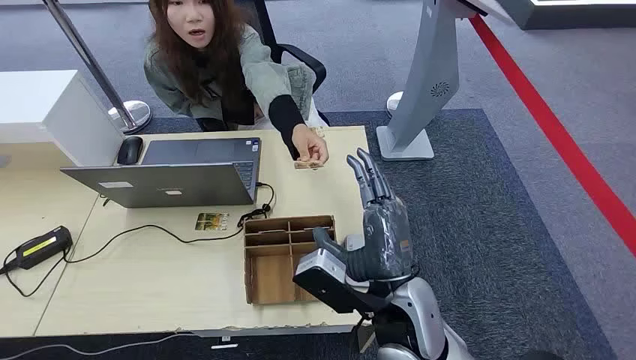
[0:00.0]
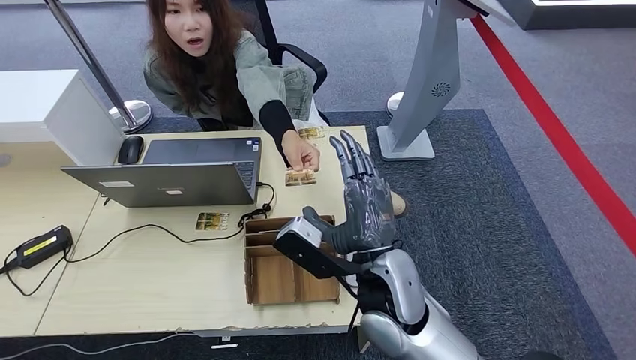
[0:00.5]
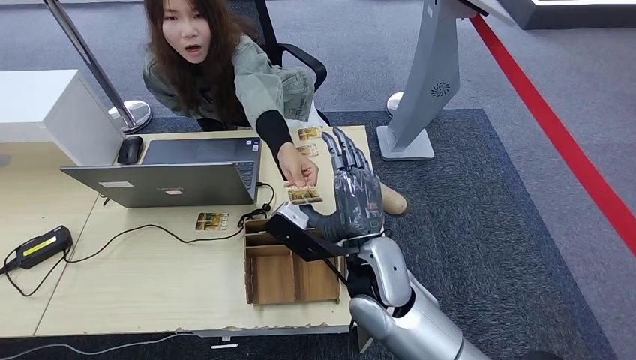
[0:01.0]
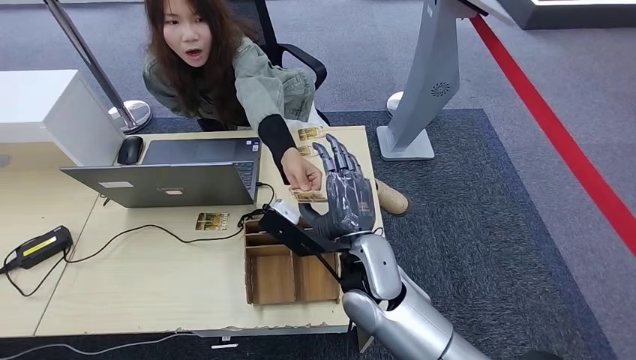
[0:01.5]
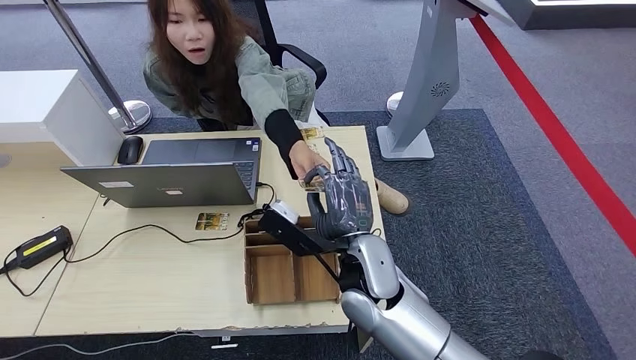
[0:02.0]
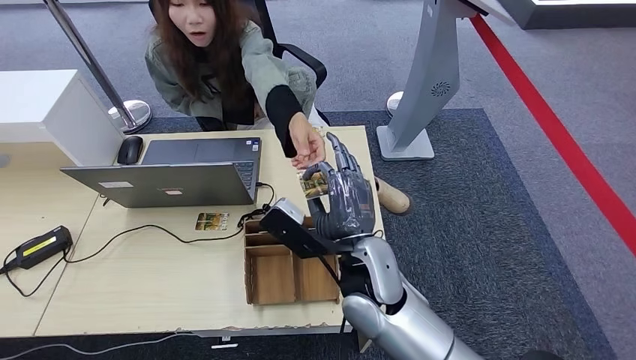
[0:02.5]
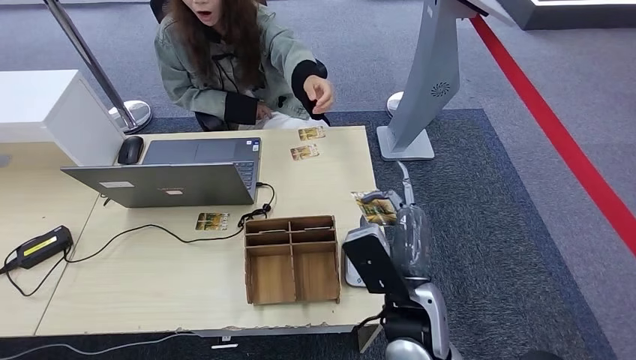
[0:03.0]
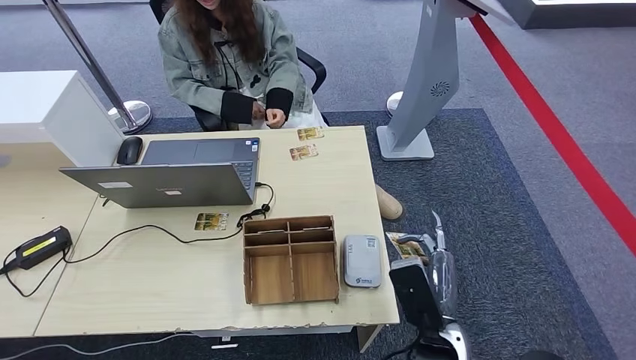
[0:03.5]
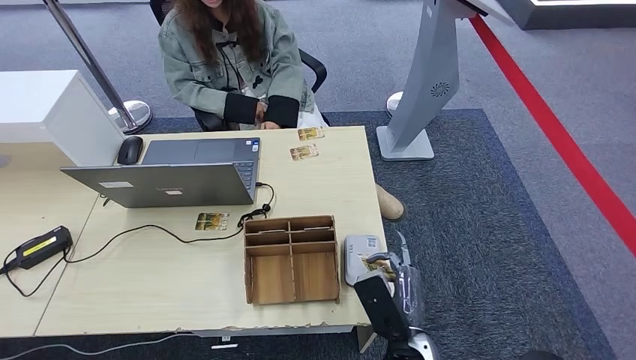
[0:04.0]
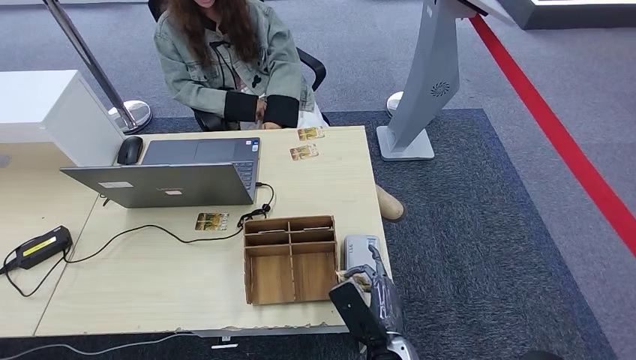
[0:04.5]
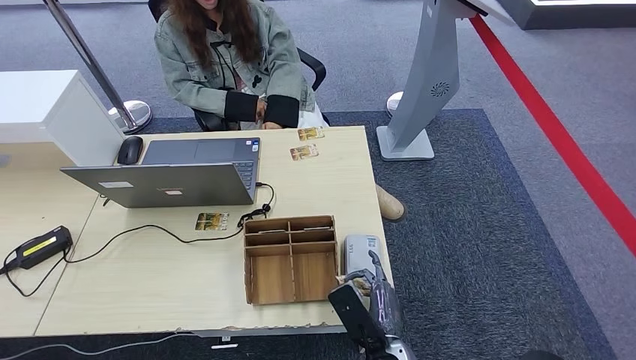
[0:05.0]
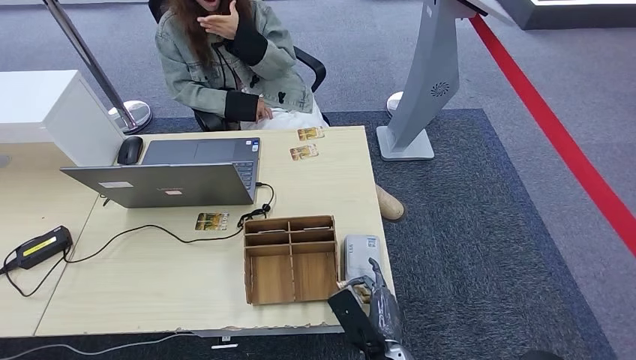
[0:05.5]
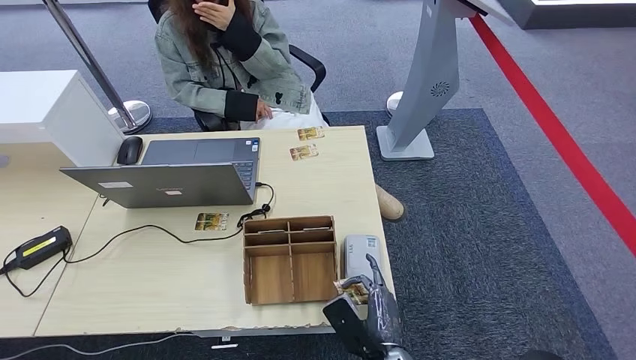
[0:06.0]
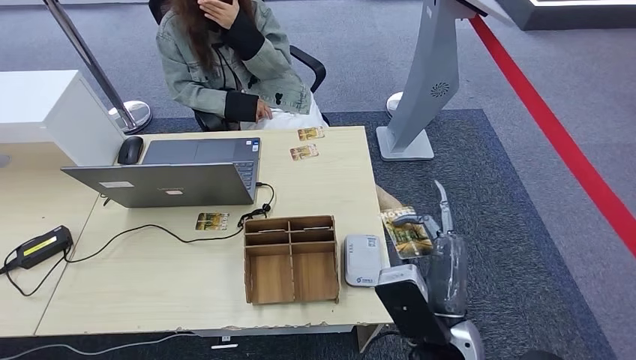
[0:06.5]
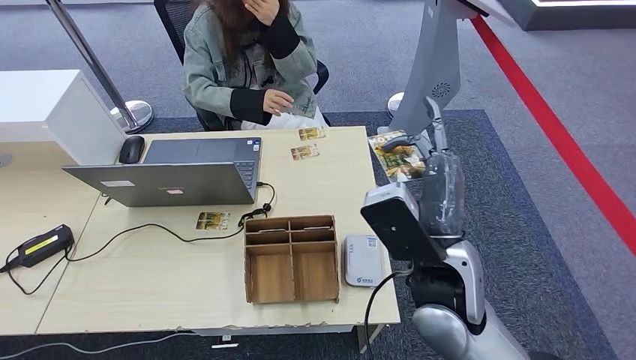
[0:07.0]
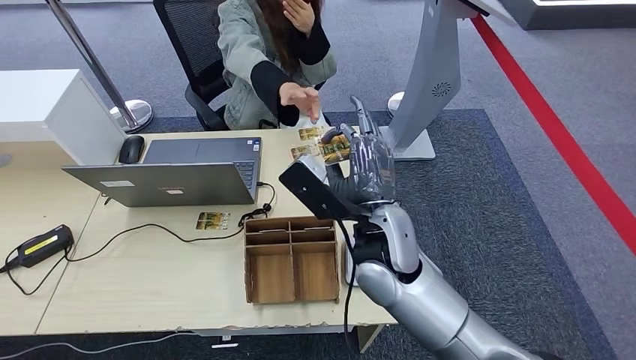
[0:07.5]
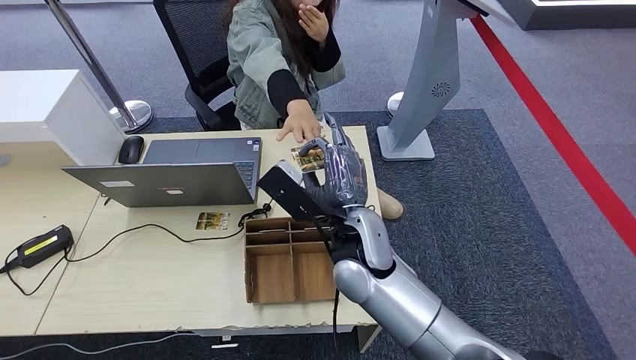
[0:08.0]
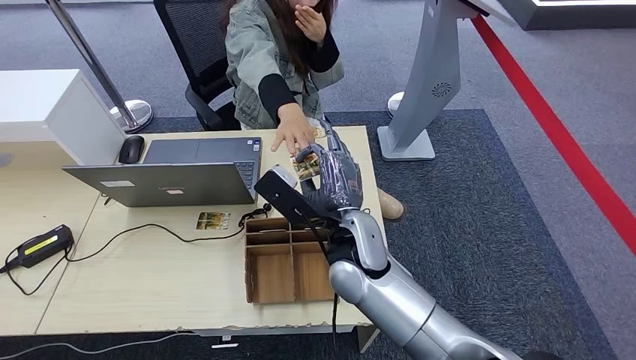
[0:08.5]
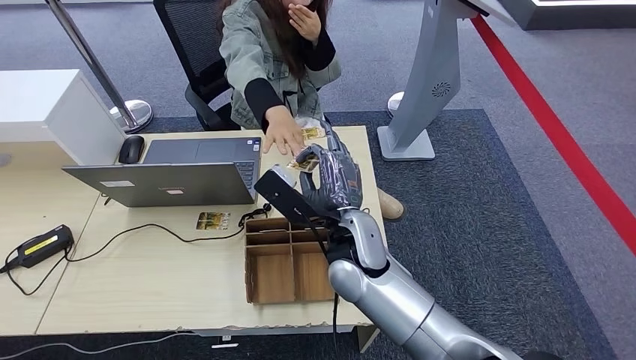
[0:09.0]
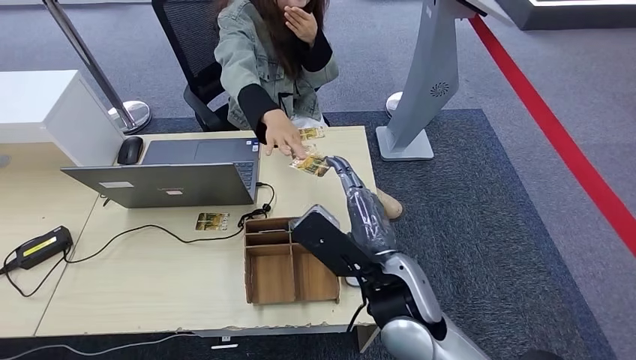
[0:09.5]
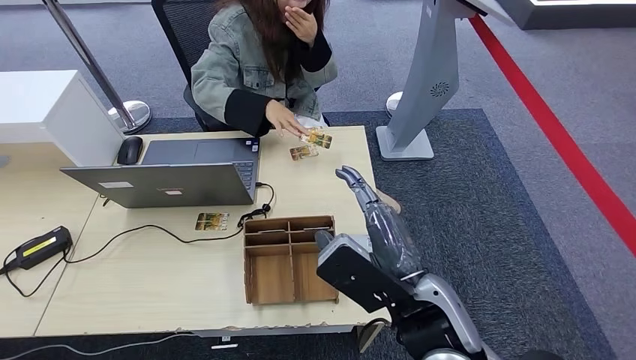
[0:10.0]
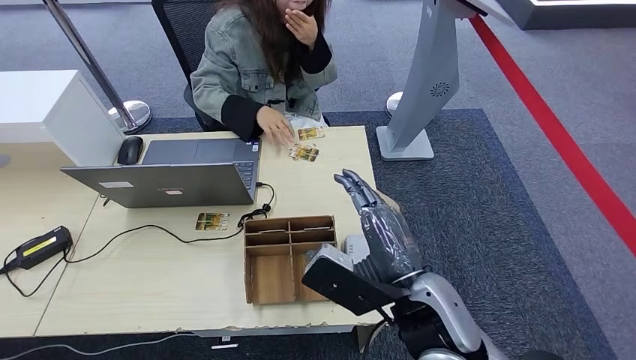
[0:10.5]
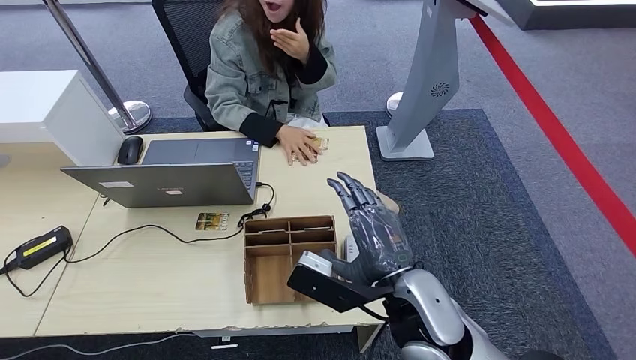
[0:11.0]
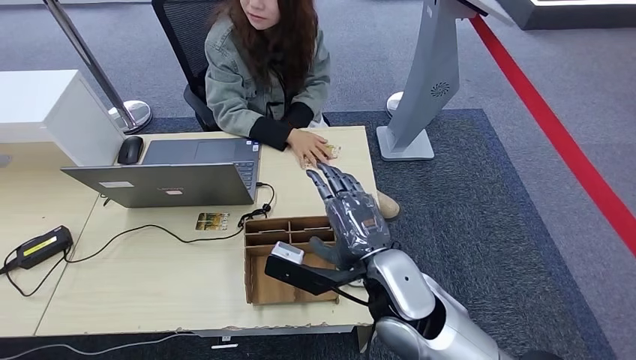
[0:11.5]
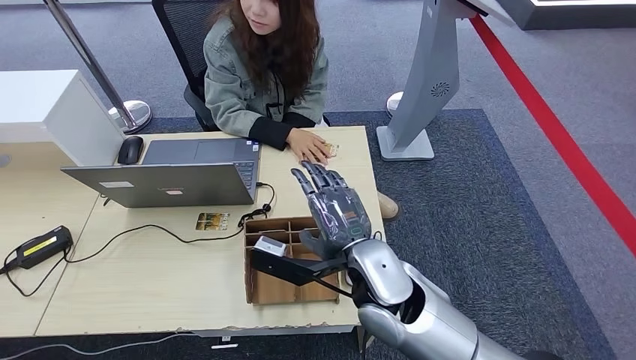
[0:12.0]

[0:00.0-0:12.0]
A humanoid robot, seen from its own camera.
Step, 0:00.0 to 0:02.5: Take the ID card from the person's hand.
Step, 0:03.0 to 0:05.0: Place the ID card on the card reader.
Step, 0:05.5 to 0:08.5: Hand the ID card to the person.
0:02.0 to 0:04.0: The right hand travels backward, downward and to the right by roughly 20 cm.
0:04.0 to 0:06.0: The right hand shifts by about 5 cm.
0:08.0 to 0:10.0: The right hand goes some 15 cm backward and to the right.
0:10.0 to 0:12.0: The right hand is displaced forward and to the left by approximately 10 cm.

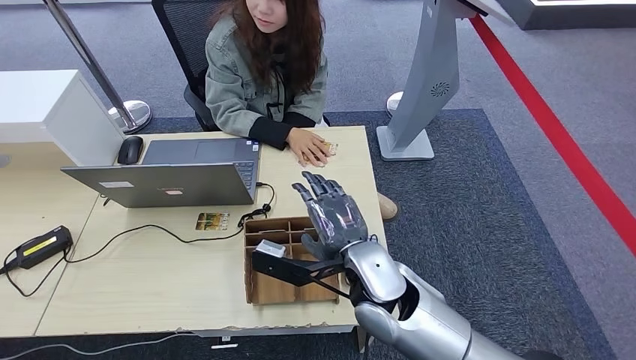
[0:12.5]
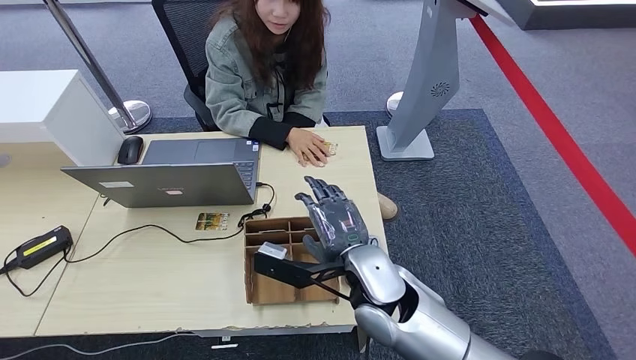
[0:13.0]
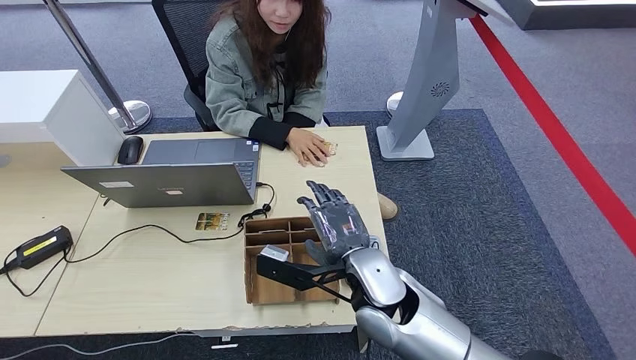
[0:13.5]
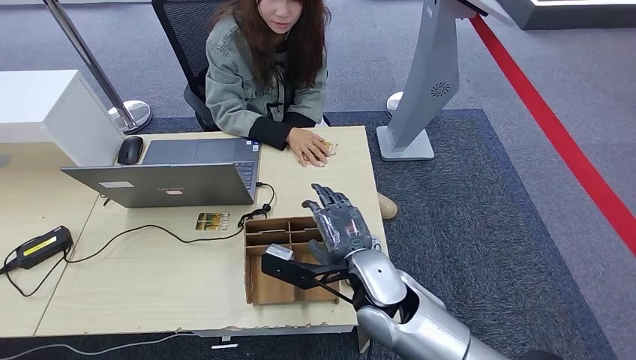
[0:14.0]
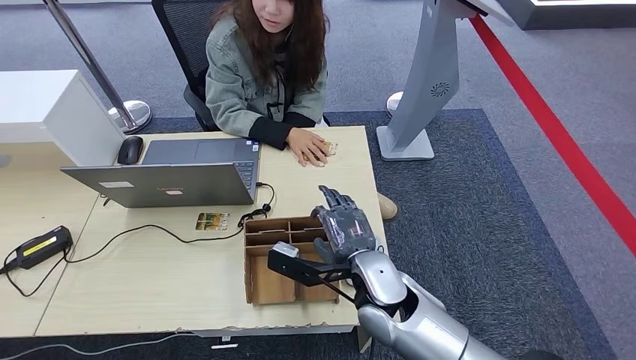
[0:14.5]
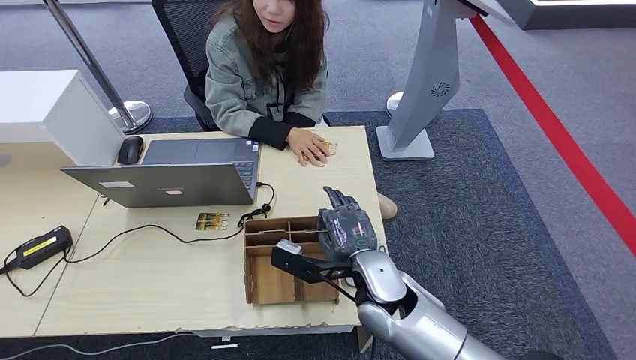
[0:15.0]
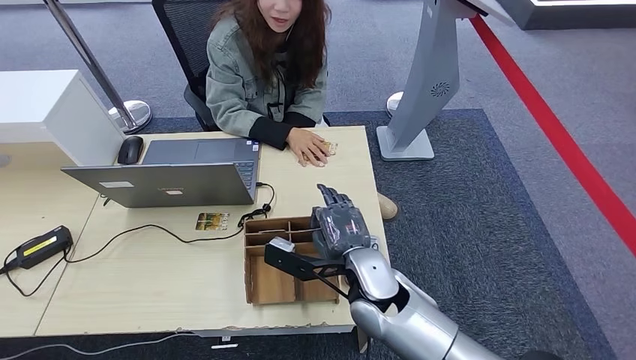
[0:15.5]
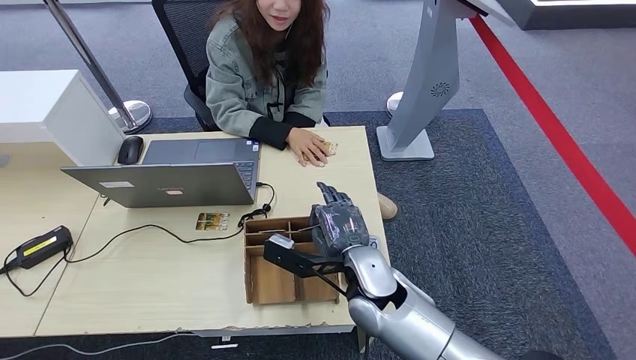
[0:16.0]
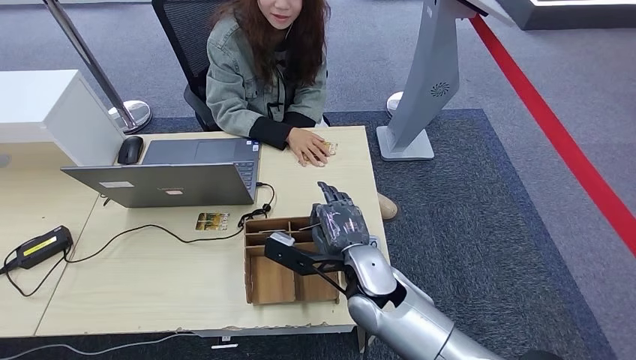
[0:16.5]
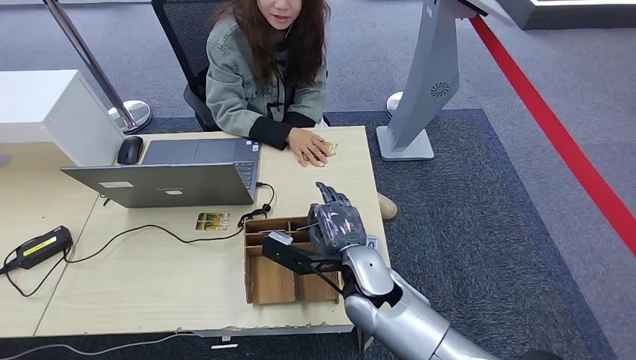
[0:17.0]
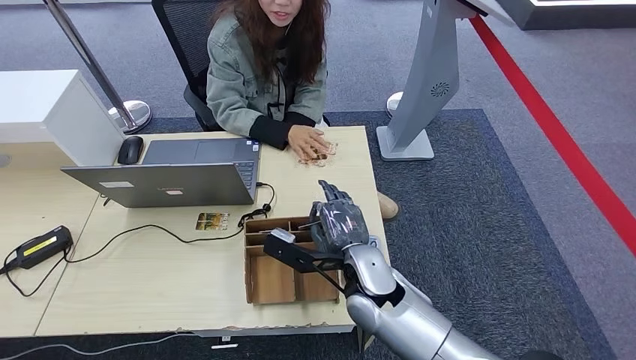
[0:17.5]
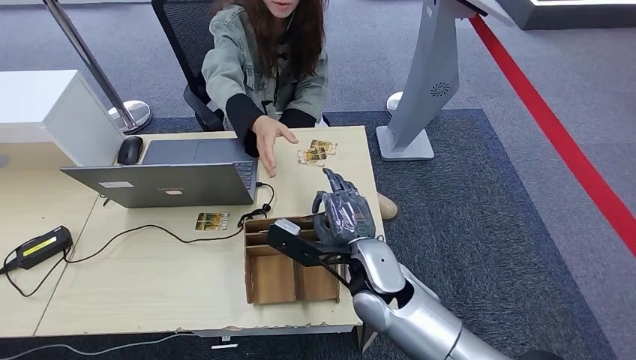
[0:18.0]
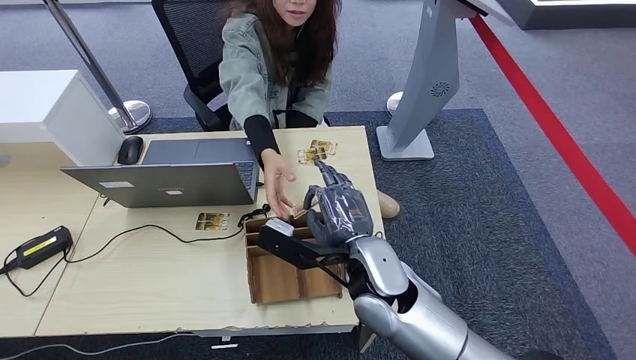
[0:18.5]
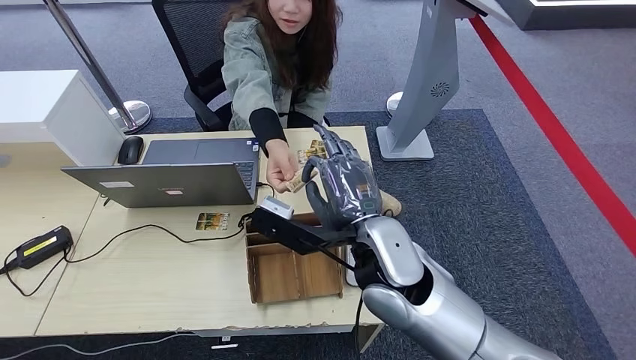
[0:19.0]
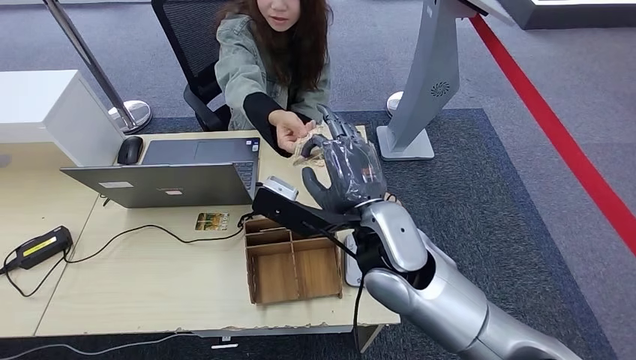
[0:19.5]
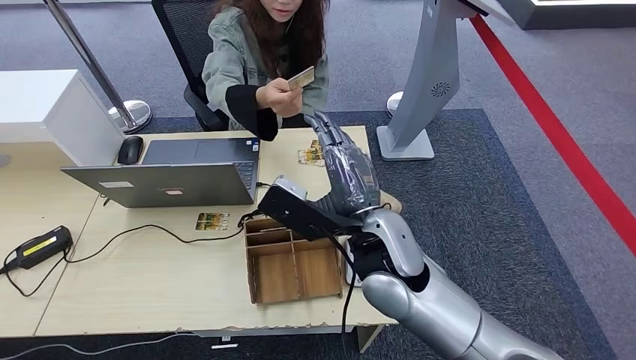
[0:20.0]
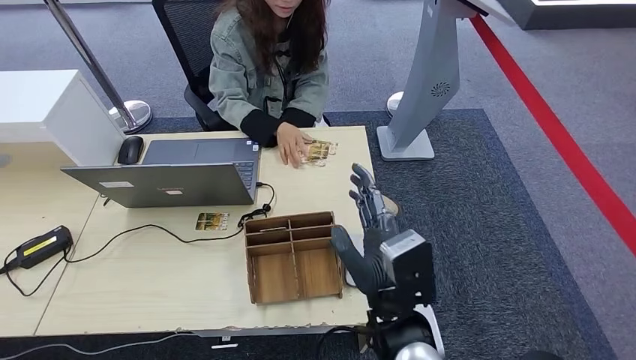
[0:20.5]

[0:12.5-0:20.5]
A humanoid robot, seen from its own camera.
Step, 0:12.5 to 0:15.5: Pick up the room key from the key card box.
Step, 0:16.0 to 0:20.5: Hand the room key to the person.
0:12.5 to 0:16.5: The hands stay close to where they were, moving slightly.
0:16.5 to 0:18.5: The right hand shifts approximately 5 cm upward.
0:18.5 to 0:20.5: The right hand heads backward, covering approximately 10 cm, and travels upward and back again, some 10 cm each way.
